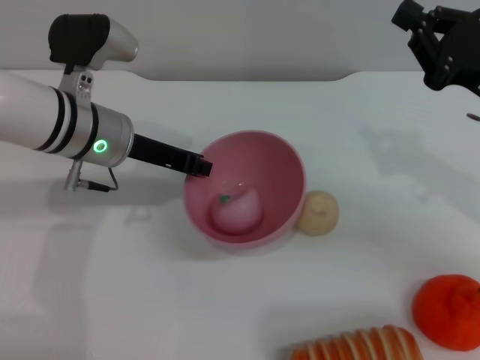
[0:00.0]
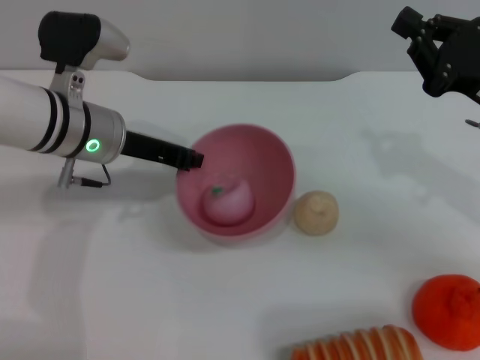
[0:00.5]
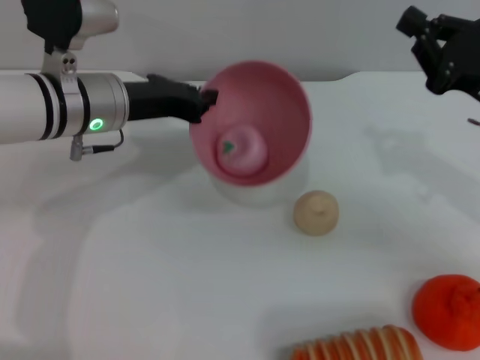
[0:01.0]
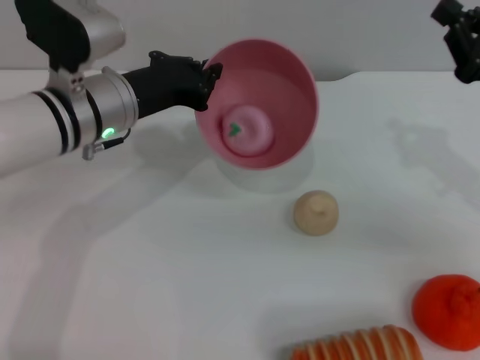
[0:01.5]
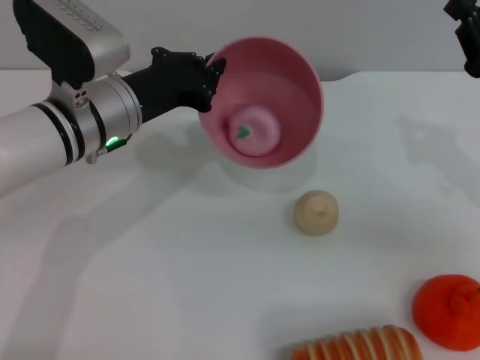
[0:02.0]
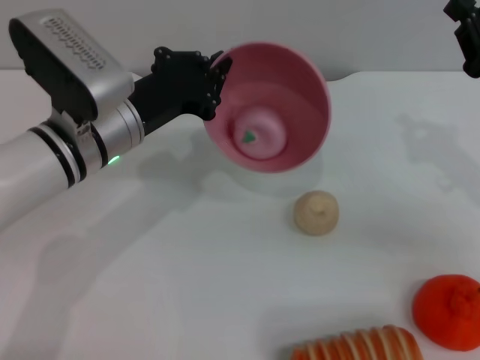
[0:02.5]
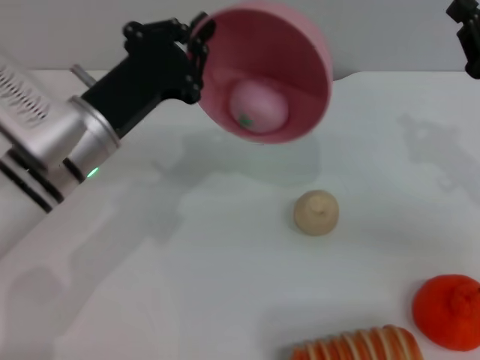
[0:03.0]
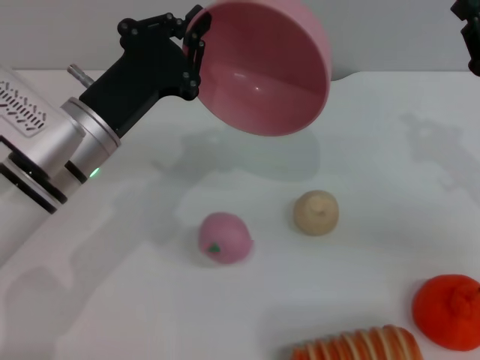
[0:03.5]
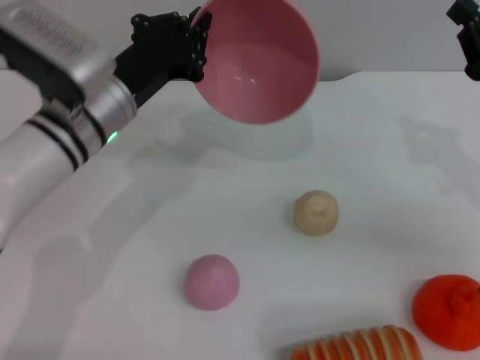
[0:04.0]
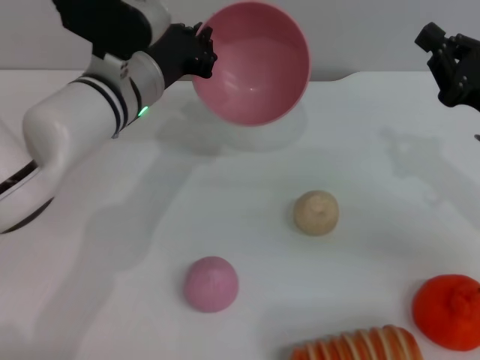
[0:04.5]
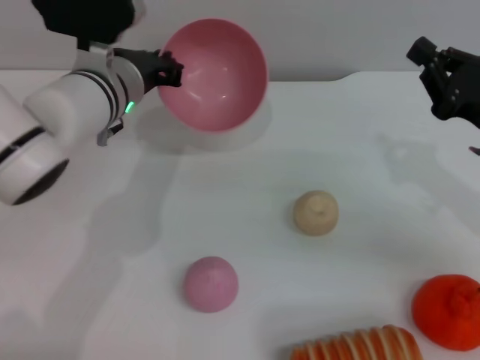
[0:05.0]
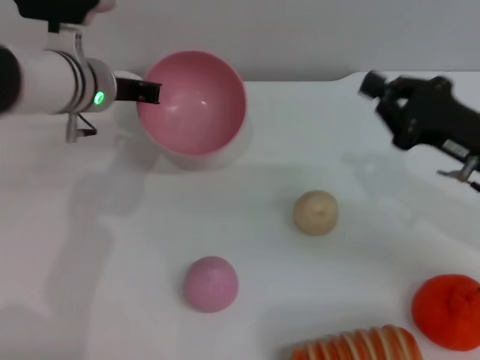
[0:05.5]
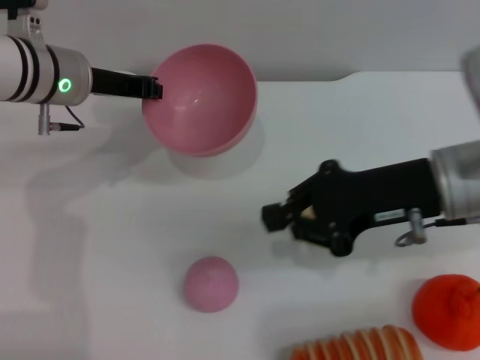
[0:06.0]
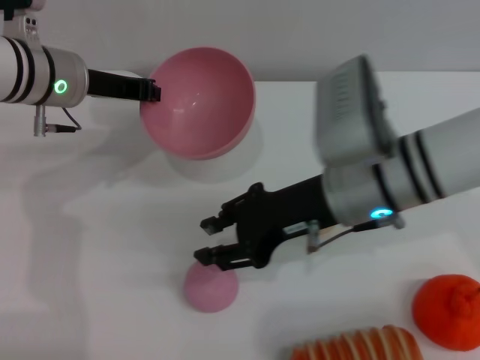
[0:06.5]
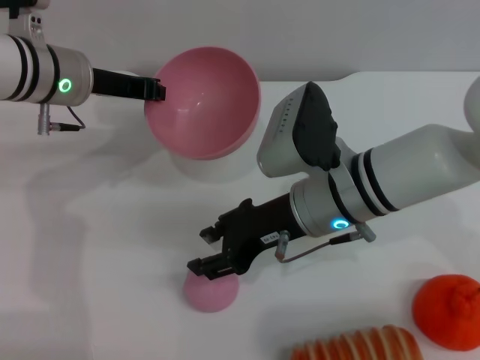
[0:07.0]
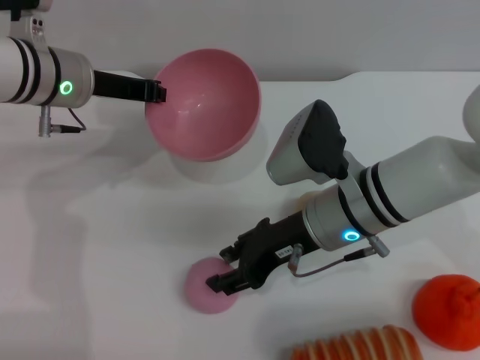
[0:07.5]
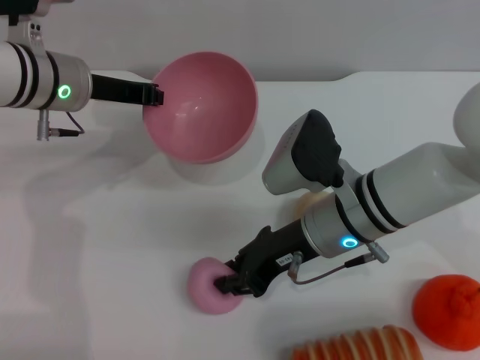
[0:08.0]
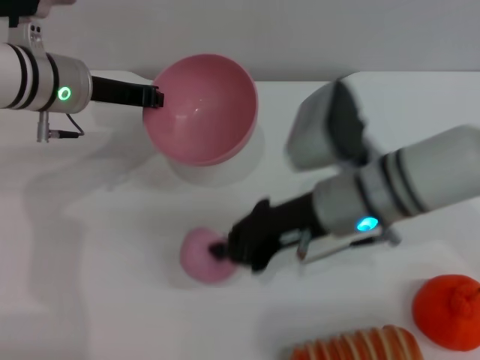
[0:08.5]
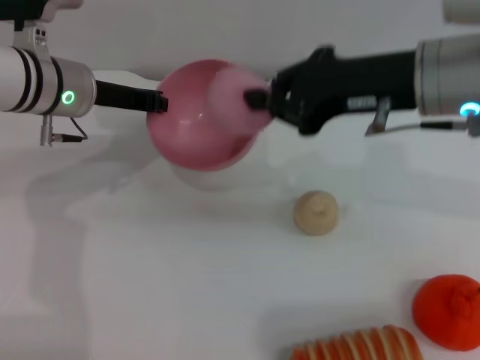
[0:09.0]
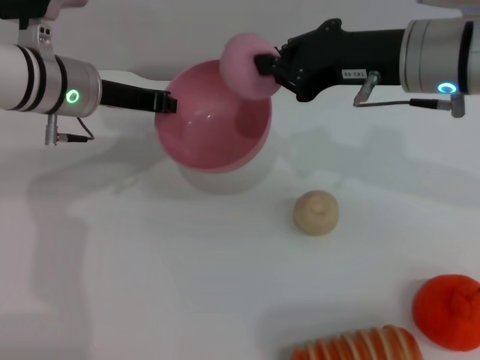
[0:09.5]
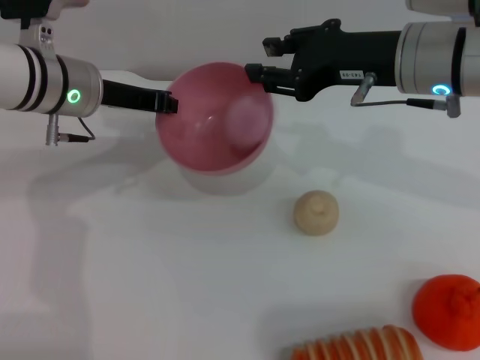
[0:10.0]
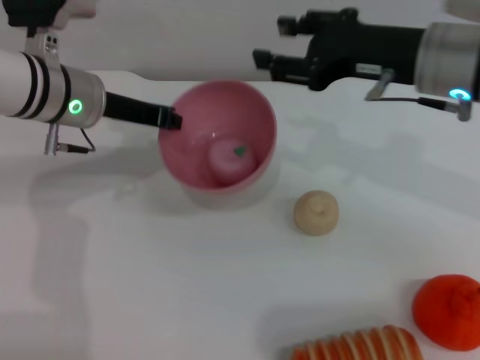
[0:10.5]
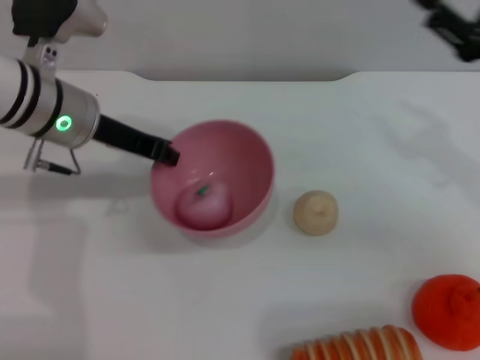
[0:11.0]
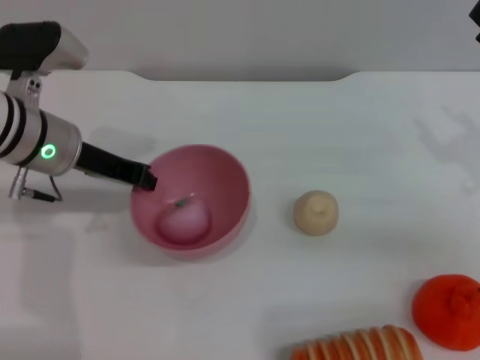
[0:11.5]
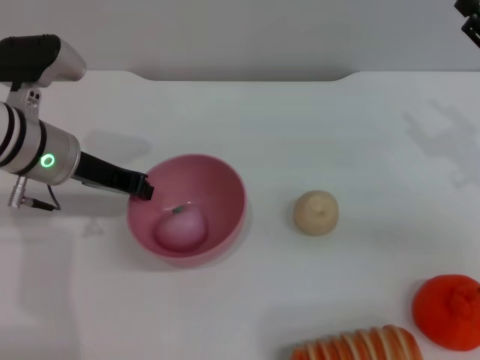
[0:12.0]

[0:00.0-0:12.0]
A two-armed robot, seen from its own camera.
Task of the whole recording: put the peach into the pink bowl and pour it out repeatedly.
Step, 0:00.0 to 0:03.5: Pour the peach out of bowl.
Step, 0:04.0 to 0:08.5: Pick up the peach with the right gripper.
Step, 0:09.0 to 0:10.0: Place the peach into the bowl.
0:04.0 to 0:06.0: The right gripper shifts approximately 10 cm to the left. The left gripper is displaced forward by about 5 cm.
0:06.0 to 0:08.0: The right gripper shifts approximately 10 cm to the left and downward, and opens.
0:08.0 to 0:10.0: The right gripper goes about 15 cm upward and to the right.
0:10.0 to 0:12.0: The right gripper is displaced to the right and downward by approximately 15 cm, and opens. The left gripper ends up approximately 5 cm from where it was.

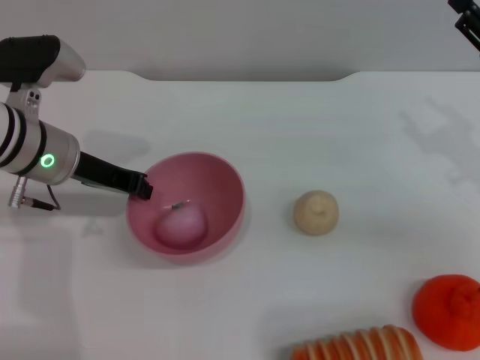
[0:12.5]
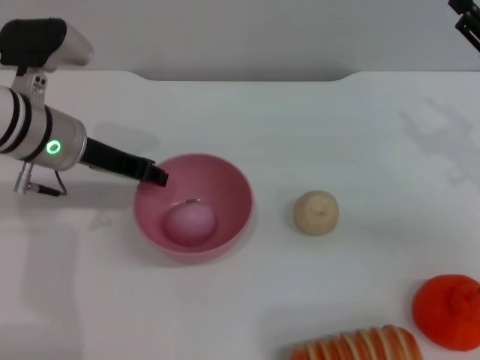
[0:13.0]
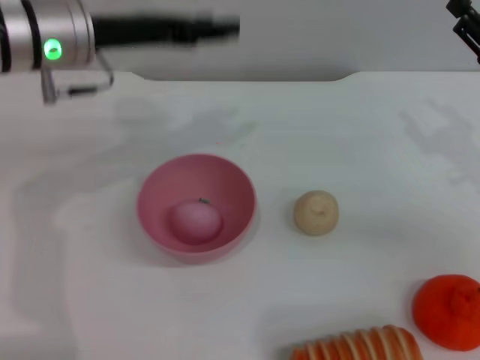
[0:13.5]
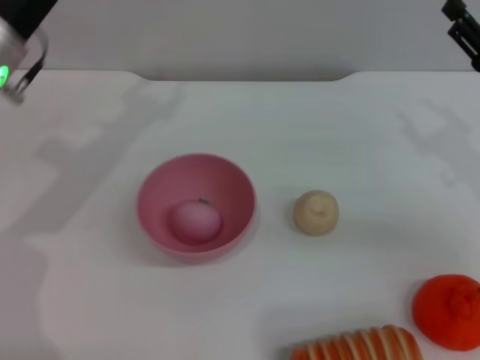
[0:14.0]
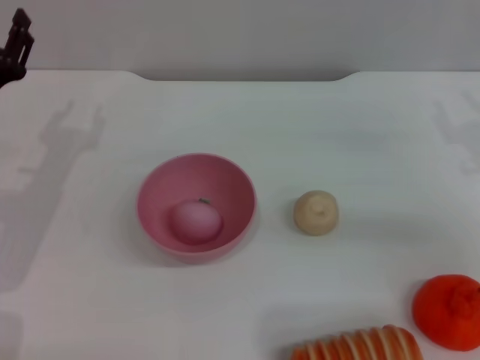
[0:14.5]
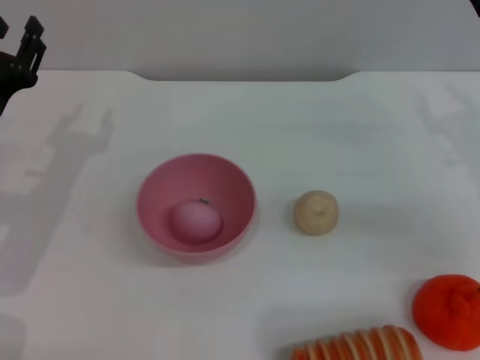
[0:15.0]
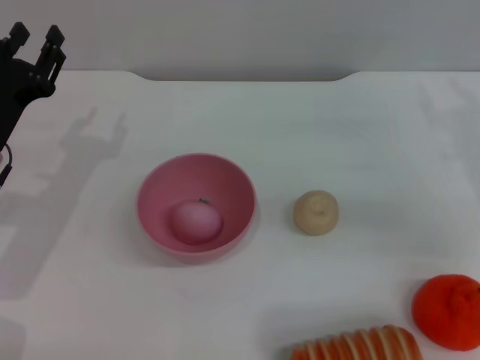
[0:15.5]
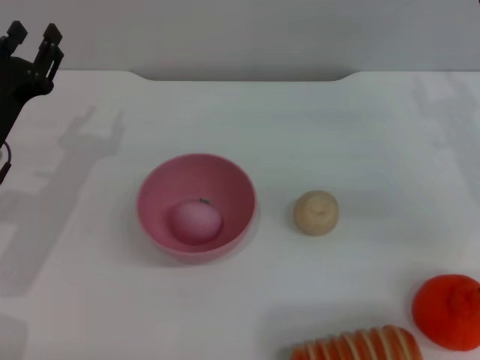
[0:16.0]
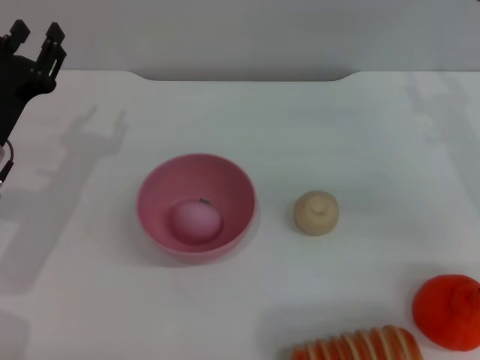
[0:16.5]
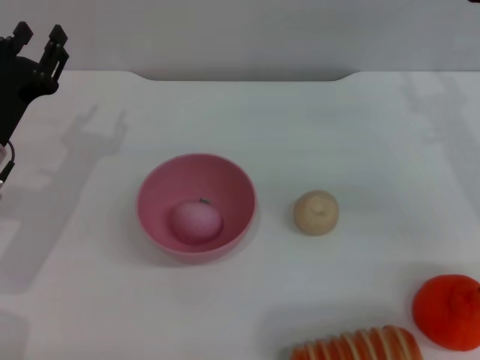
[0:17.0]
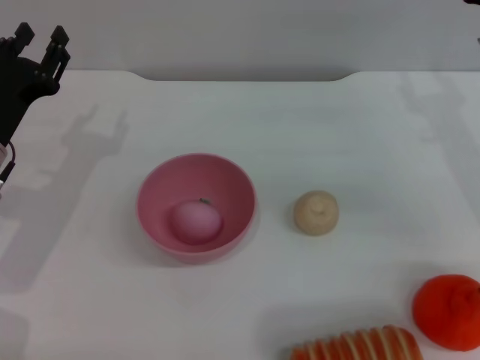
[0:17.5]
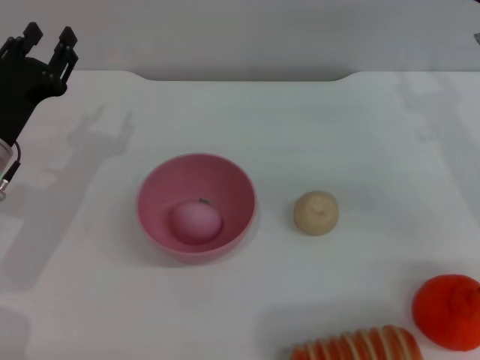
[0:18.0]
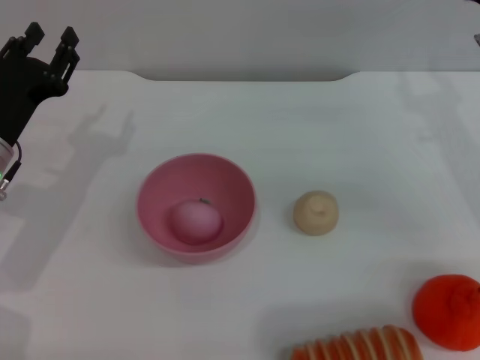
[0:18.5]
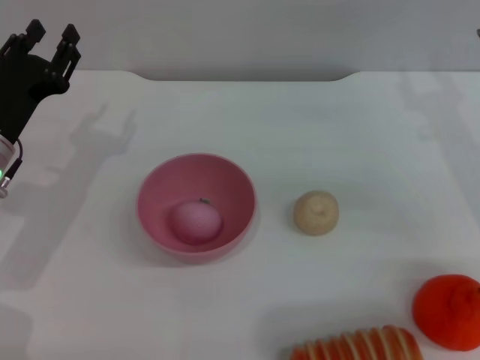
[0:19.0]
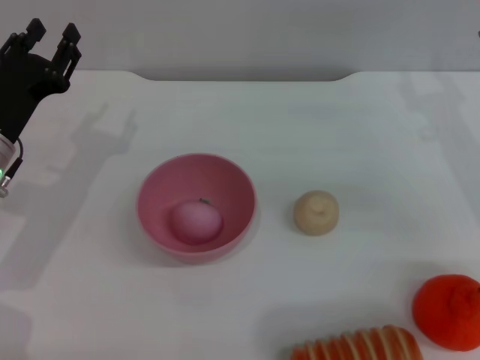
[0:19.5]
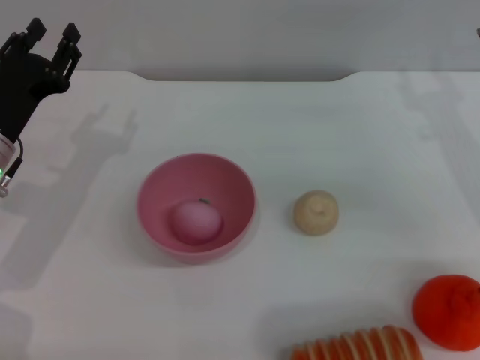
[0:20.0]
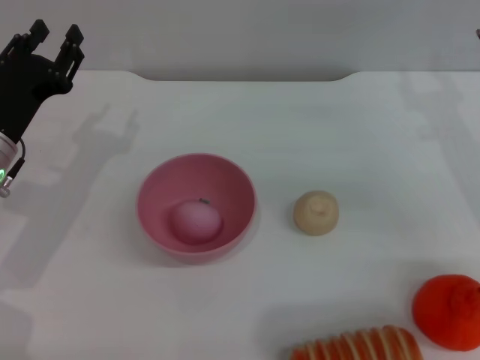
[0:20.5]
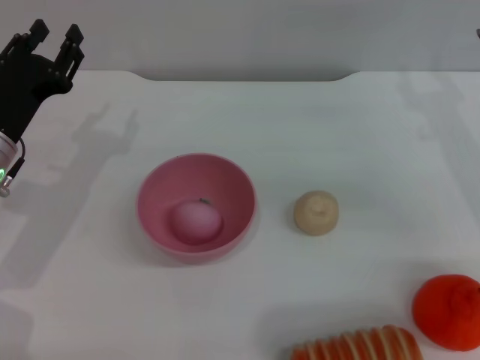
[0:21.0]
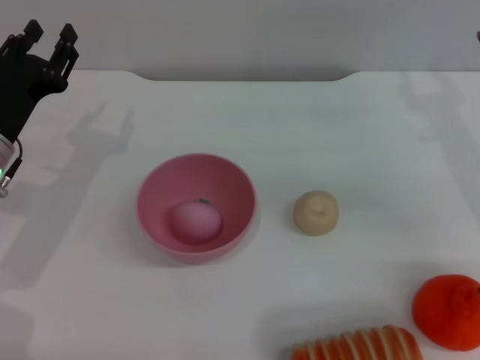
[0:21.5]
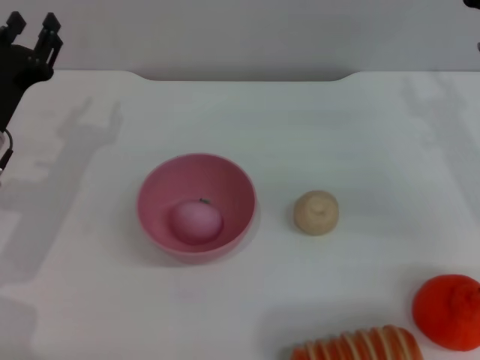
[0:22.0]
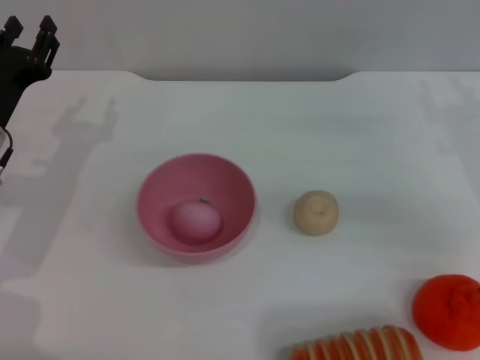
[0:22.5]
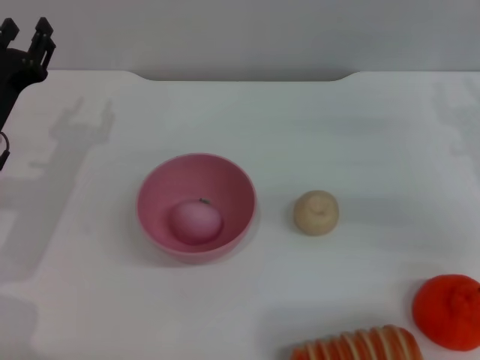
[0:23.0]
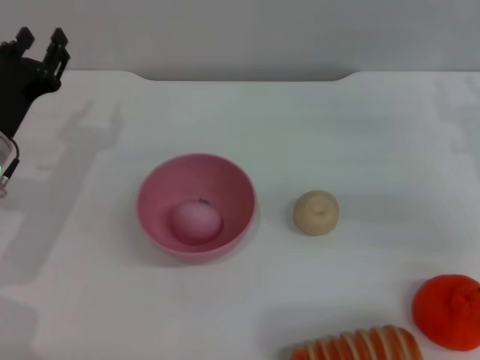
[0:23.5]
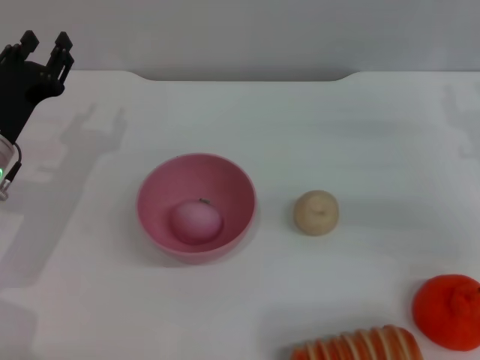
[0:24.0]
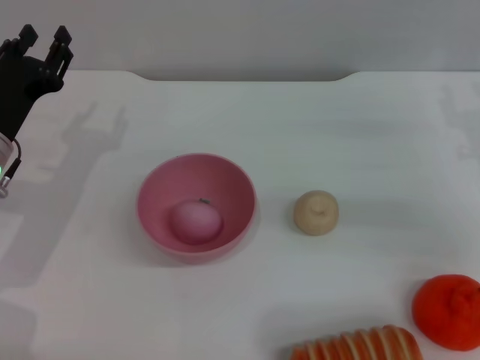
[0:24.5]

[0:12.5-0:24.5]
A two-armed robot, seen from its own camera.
Task of the whole recording: put the peach into the pink bowl and pour it out repeatedly.
0:12.5 to 0:14.5: The left gripper goes roughly 5 cm to the left, travels upward and back again, some 10 cm each way, and opens.
0:16.5 to 0:20.5: The two grippers keep their place.
0:20.5 to 0:24.5: The grippers move only a little.

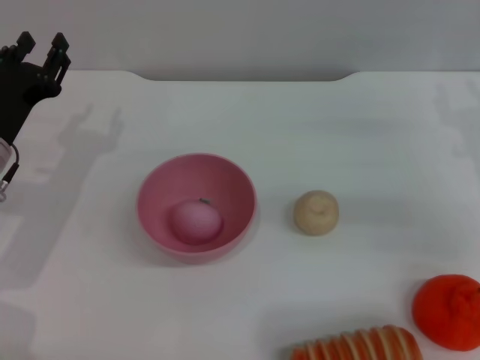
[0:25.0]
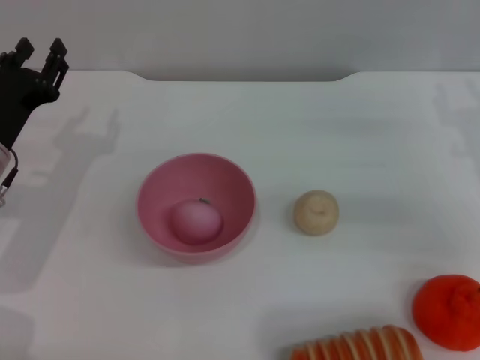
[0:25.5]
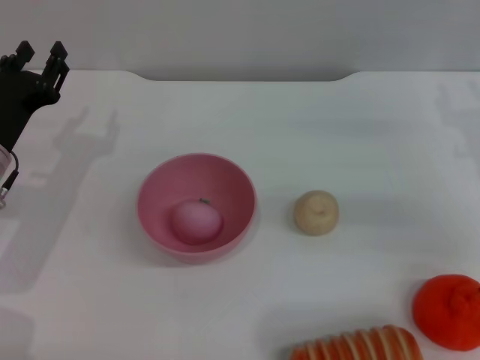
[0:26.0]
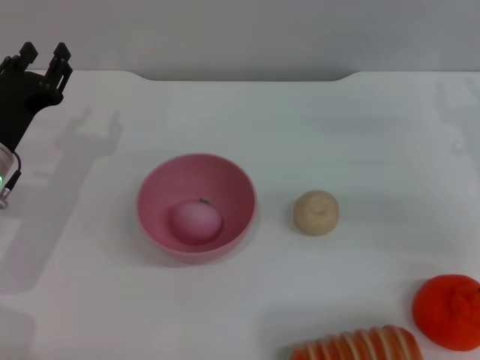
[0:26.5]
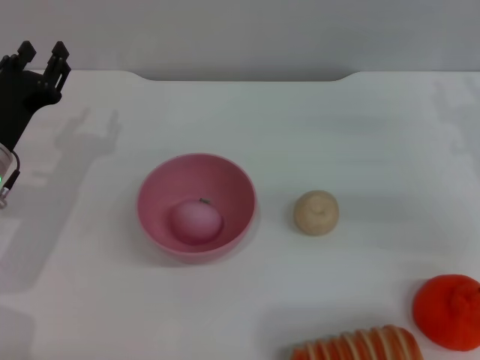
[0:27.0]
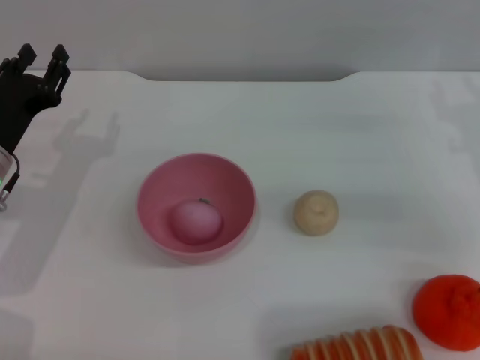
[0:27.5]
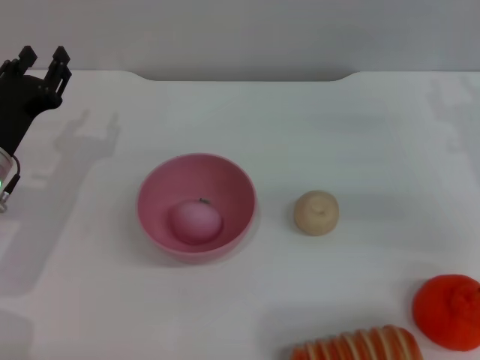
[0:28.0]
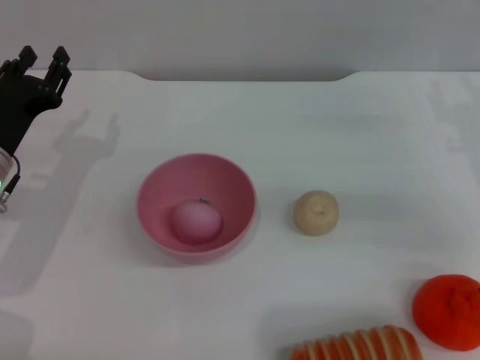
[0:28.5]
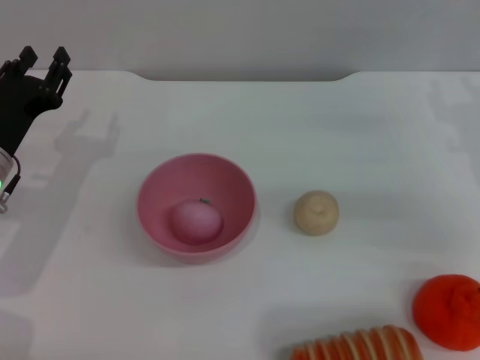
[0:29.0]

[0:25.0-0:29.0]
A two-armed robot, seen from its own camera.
Task of the whole recording: put the peach into the pink bowl and pour it out repeatedly.
0:25.0 to 0:29.0: Both grippers stay about where they are.
